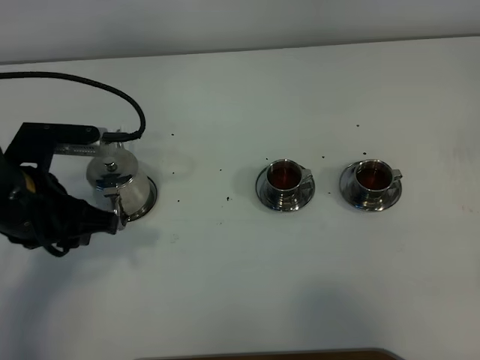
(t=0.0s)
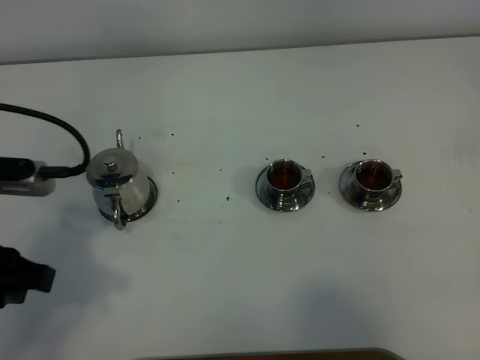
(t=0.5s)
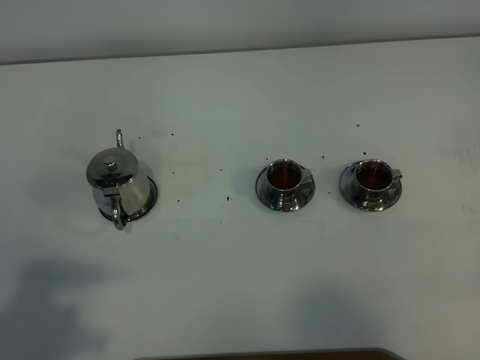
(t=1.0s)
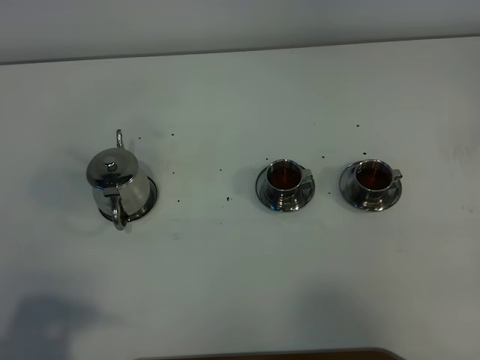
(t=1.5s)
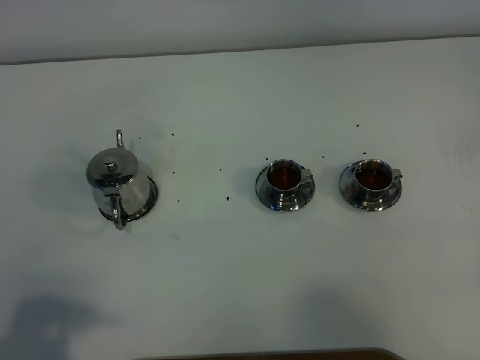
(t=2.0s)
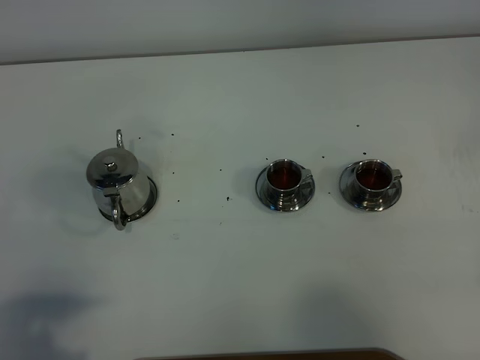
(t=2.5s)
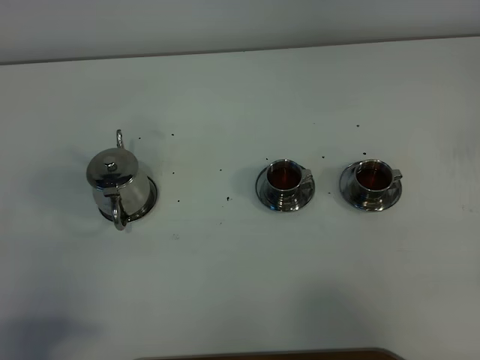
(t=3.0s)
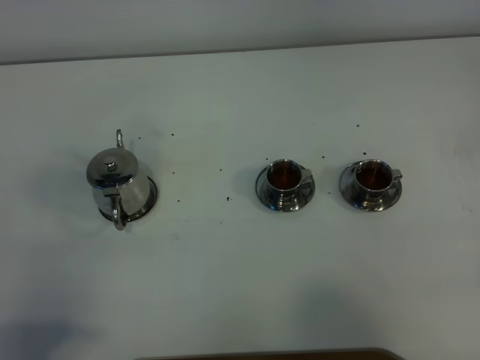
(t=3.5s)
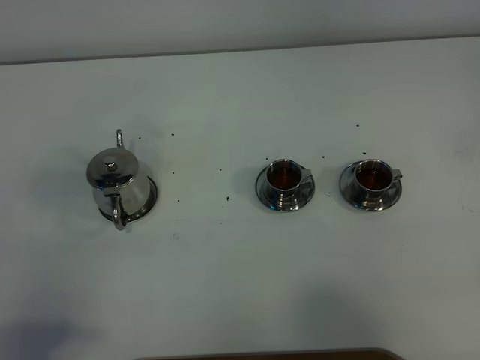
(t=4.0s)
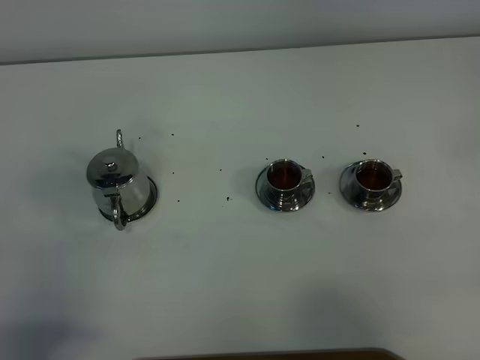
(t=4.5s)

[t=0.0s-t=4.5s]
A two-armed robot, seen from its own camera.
Task of the whole recording: grasp the stainless steel teapot and pour the tea into the two stainless steel teacups one by one, put the stainless steel teapot back in its original place.
t=0.0s to t=2.0s: The left gripper moves backward, approximately 20 cm.
